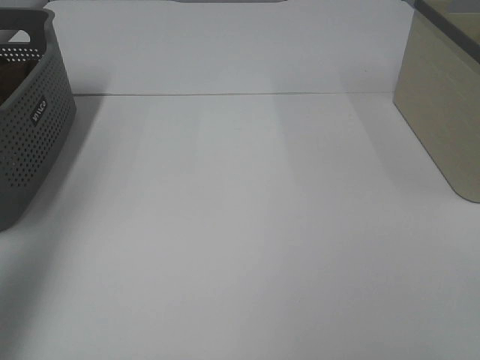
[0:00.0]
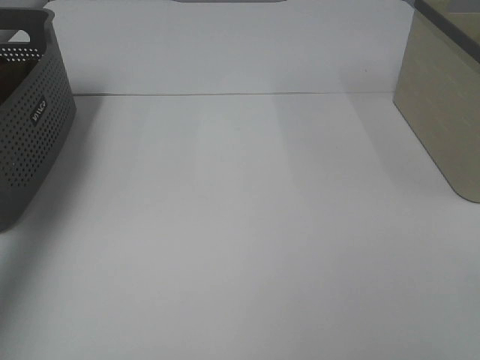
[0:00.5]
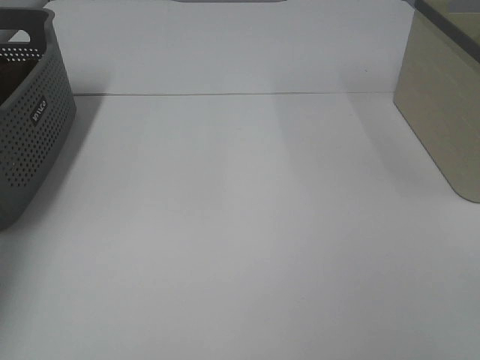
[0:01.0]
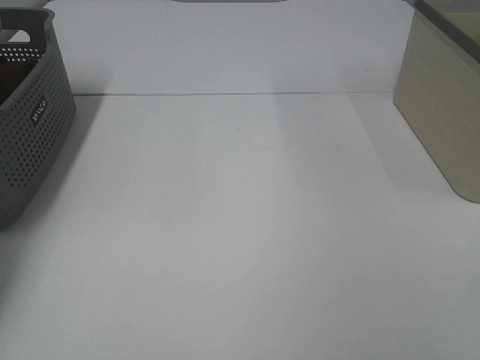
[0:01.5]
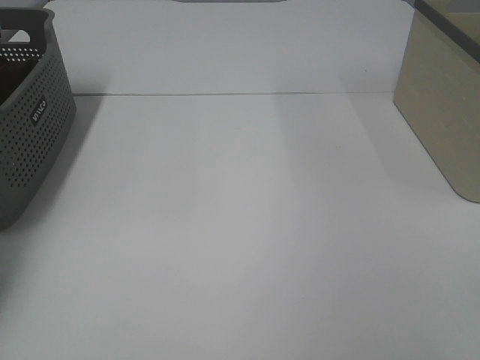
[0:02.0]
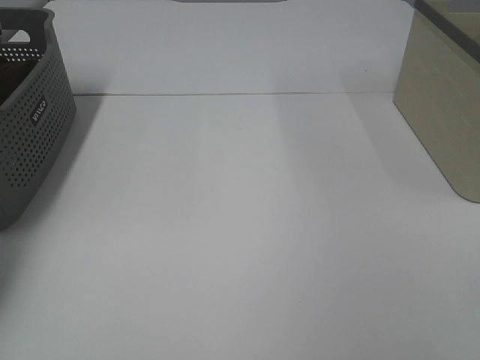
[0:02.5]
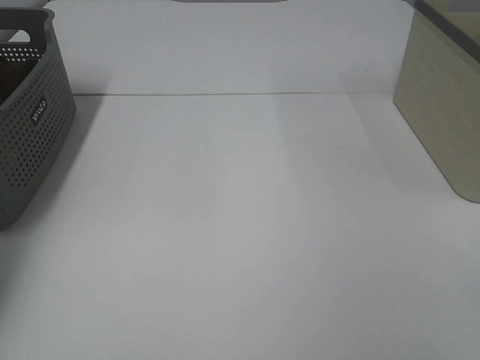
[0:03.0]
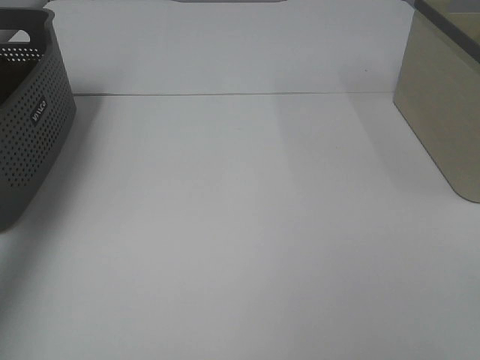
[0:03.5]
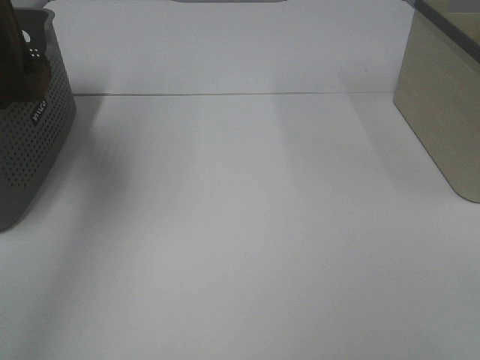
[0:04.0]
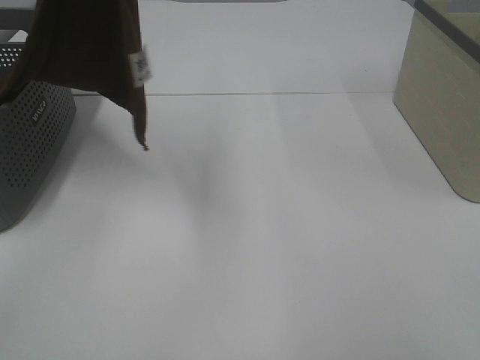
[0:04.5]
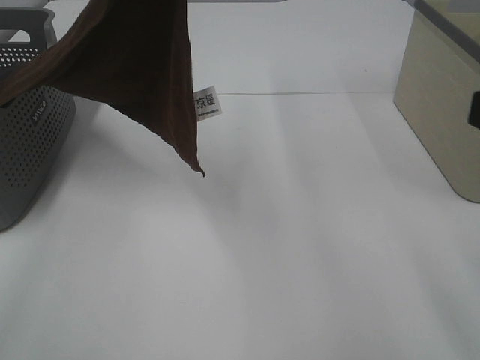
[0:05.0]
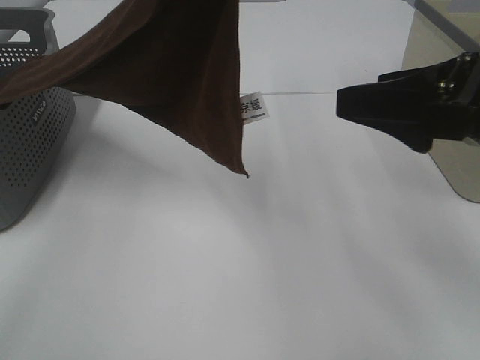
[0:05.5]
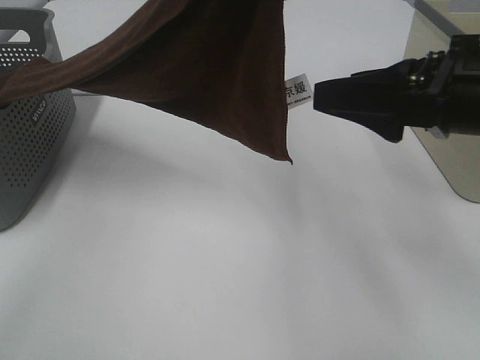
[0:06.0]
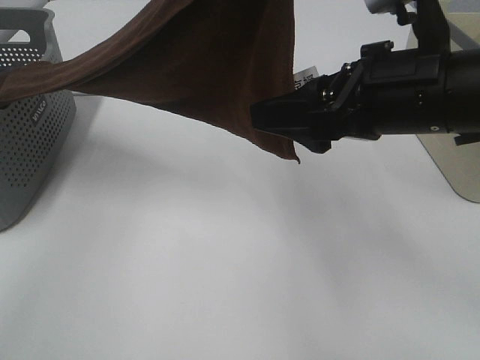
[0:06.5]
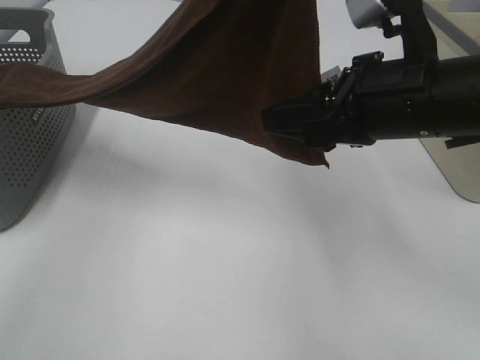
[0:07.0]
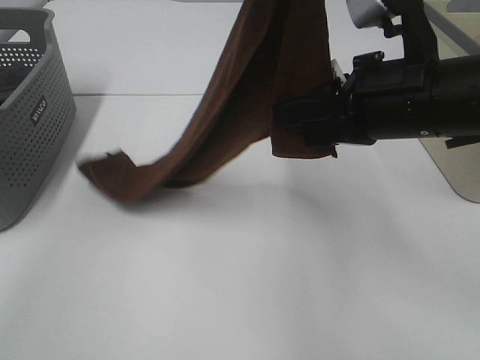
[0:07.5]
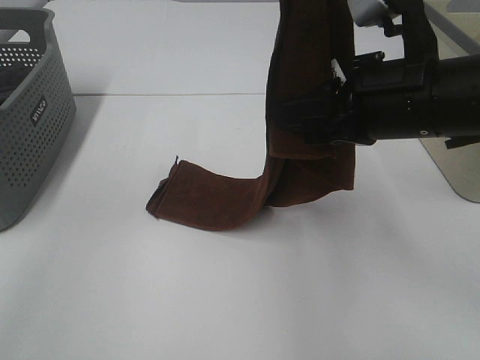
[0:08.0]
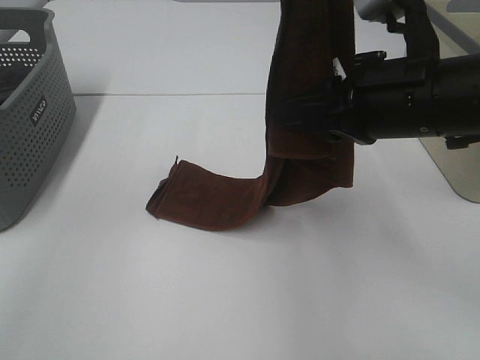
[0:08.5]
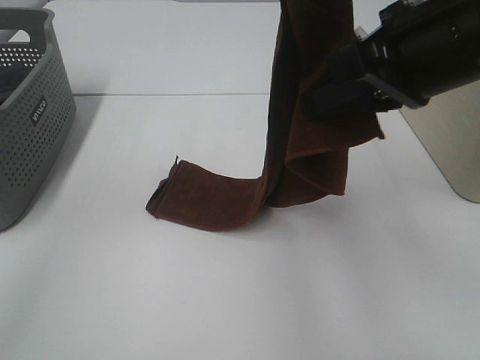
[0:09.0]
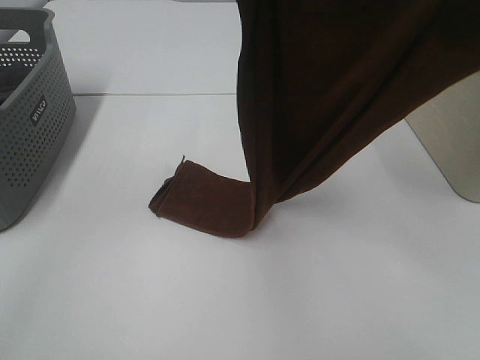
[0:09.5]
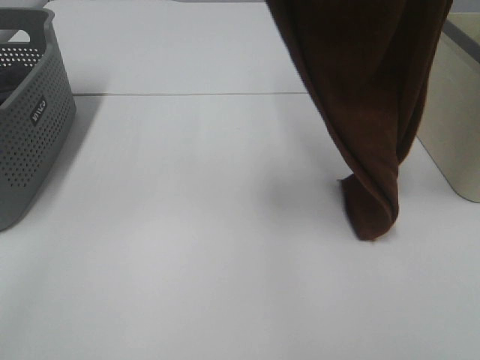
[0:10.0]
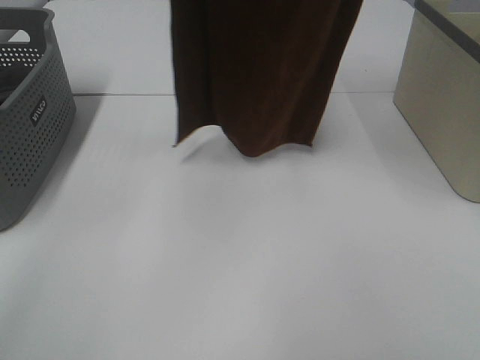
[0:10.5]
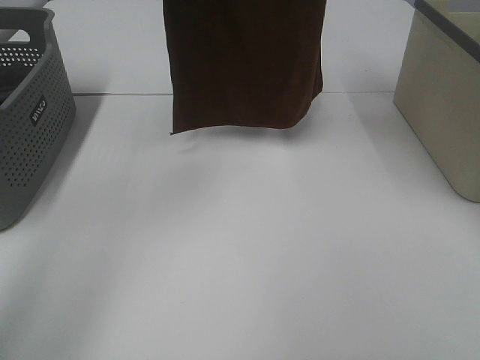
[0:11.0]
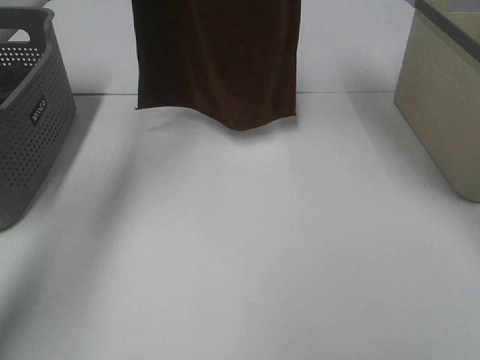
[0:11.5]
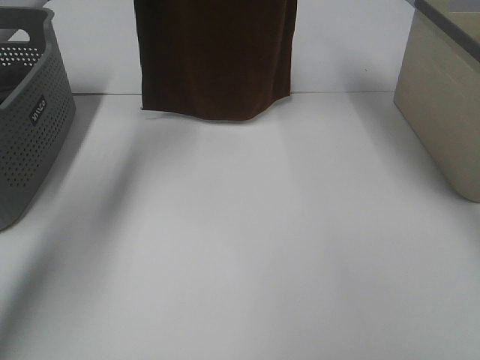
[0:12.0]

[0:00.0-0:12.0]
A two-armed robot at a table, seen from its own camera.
Task of the whole recording: Remove the towel and place it.
Step, 4.0 to 8.0 s: Right hand: grab a corner of the brown towel and straighten it.
0.0 to 2.0 s: The left gripper moves forward and downward, roughly 35 cm.
2.0 to 4.0 s: The left gripper goes roughly 40 cm upward, backward and to the right, and closes.
4.0 to 6.0 s: The right gripper travels forward by some 20 cm, while the left gripper moves to the right, about 20 cm.
6.0 to 8.0 s: The right gripper moves approximately 5 cm, and closes.
8.0 to 10.0 s: The right gripper is displaced upward by roughly 30 cm.
10.0 to 12.0 s: The right gripper goes about 20 cm forward. The left gripper goes about 25 cm forward and to the left.

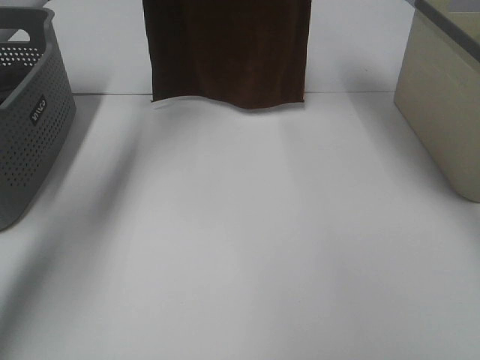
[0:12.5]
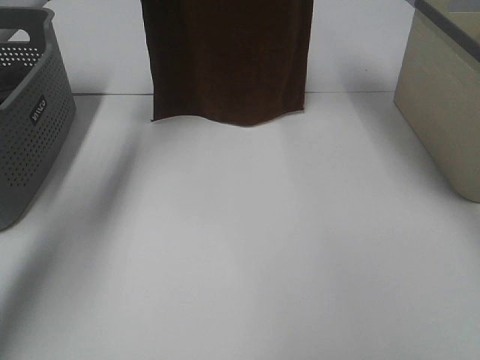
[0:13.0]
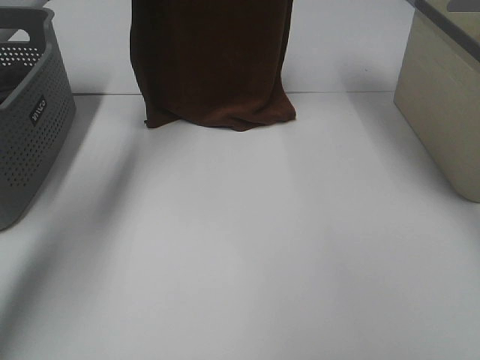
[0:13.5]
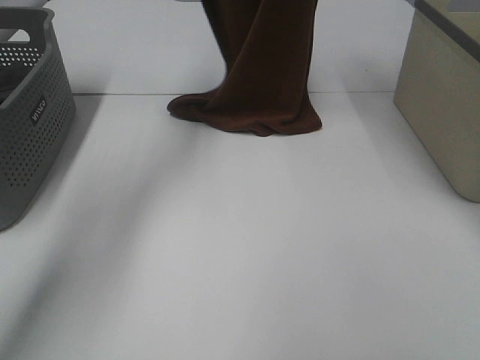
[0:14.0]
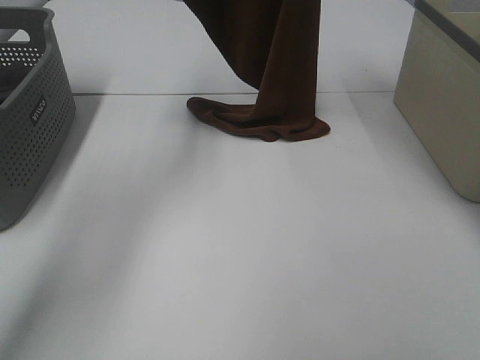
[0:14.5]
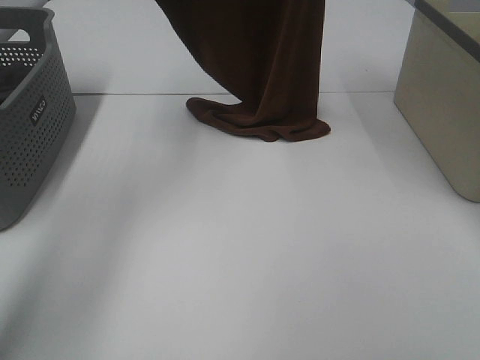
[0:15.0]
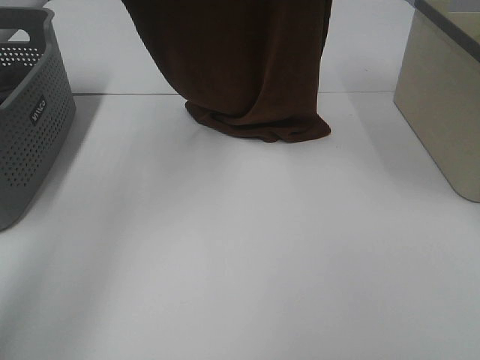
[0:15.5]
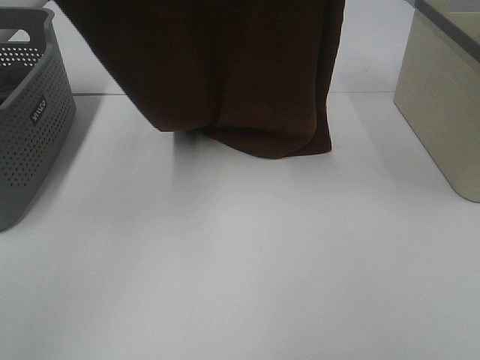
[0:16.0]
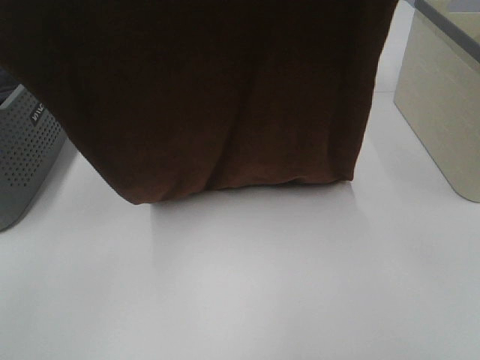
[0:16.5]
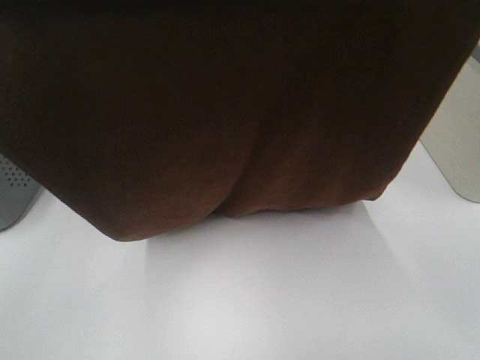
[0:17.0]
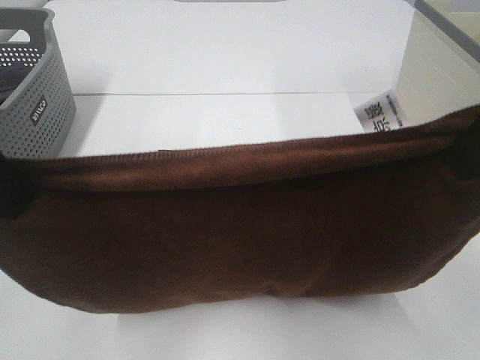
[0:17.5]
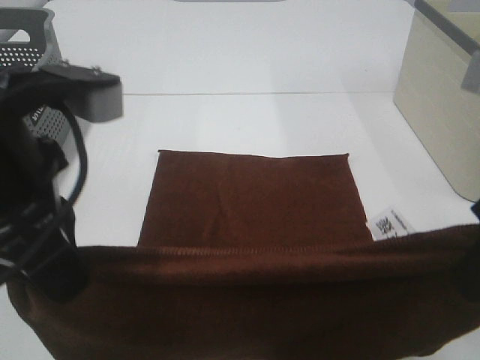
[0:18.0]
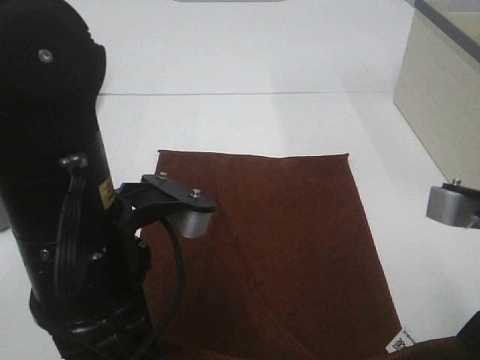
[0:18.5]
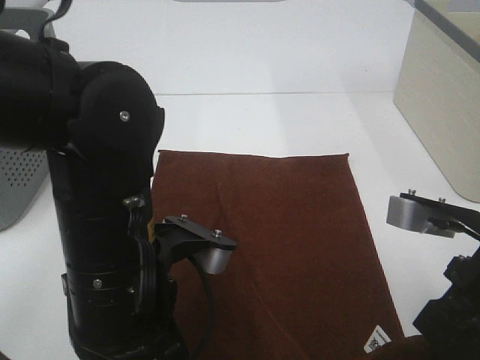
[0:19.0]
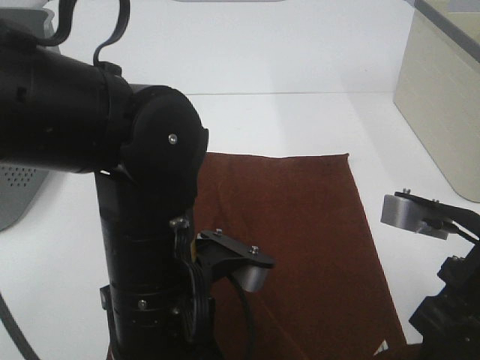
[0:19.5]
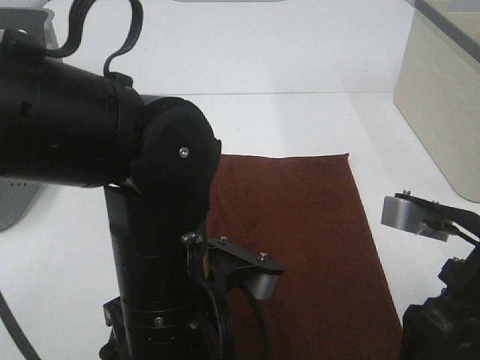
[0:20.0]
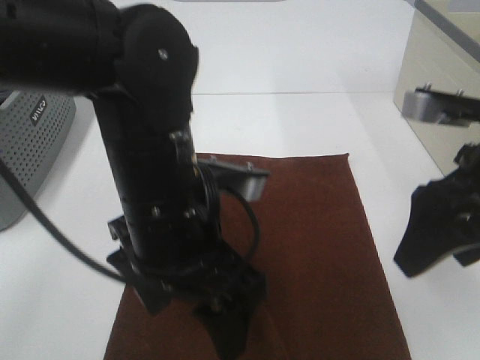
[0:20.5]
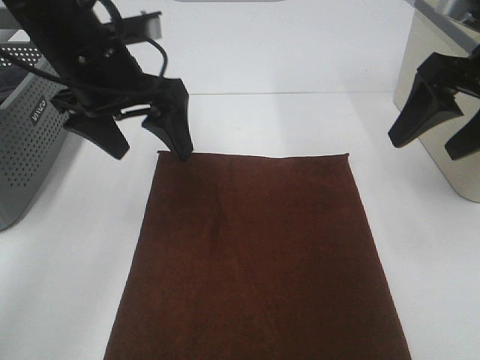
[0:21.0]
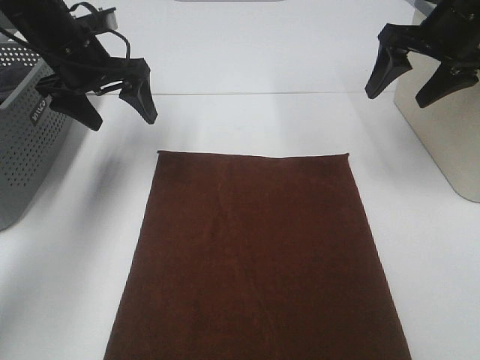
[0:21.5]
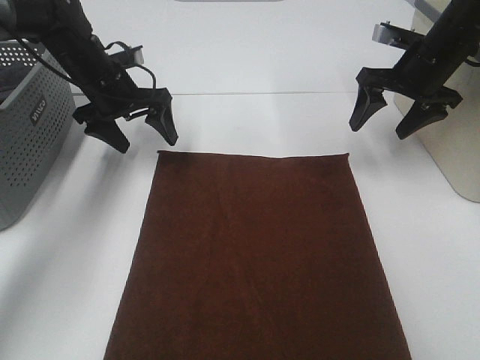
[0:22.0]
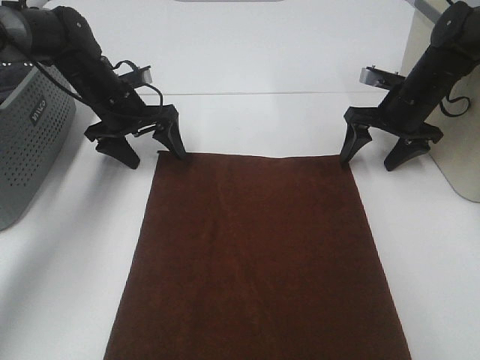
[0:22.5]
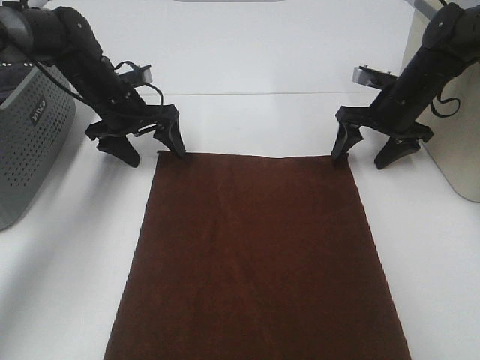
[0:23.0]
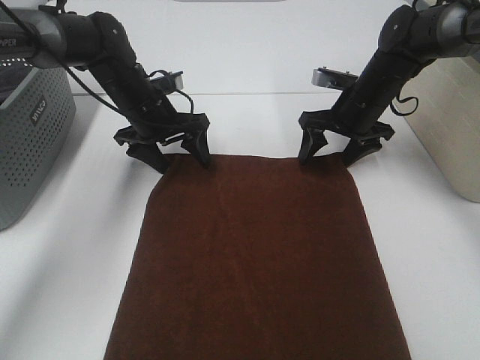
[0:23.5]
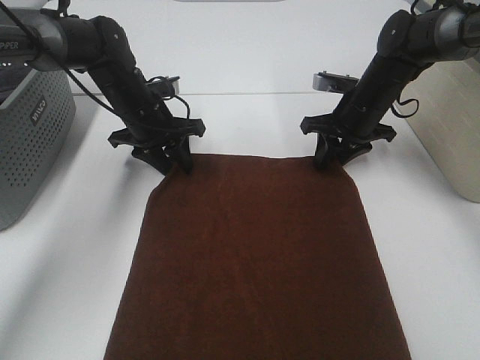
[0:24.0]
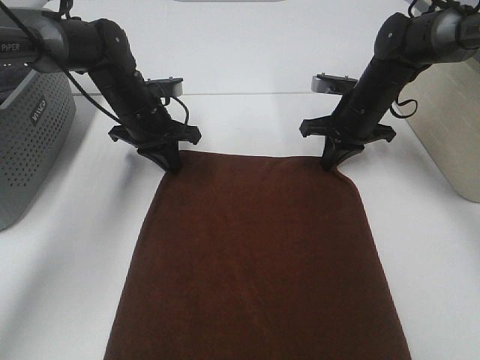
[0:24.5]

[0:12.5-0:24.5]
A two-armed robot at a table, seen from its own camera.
Task of the whole recording: Remove the towel and place it.
Step, 12.5 to 15.0 s: Left hand: spread the brown towel flat on the table.
Step, 12.5 to 15.0 s: Right hand: spread the brown towel flat on the table.
12.5 to 14.5 s: The left gripper travels downward and to the right by about 10 cm.
14.5 to 16.5 s: Both grippers move backward, about 25 cm.
16.5 to 18.5 s: The left gripper moves downward and to the right, approximately 25 cm. The right gripper shifts roughly 25 cm downward.
18.5 to 20.5 s: The right gripper goes approximately 10 cm forward, and opens. Meanwhile the left gripper moves about 5 cm, and opens its fingers.
20.5 to 22.5 s: The left gripper moves forward and to the left, roughly 30 cm, while the right gripper heads forward and downward, covering about 30 cm.
22.5 to 24.5 s: The right gripper moves to the left, roughly 5 cm, and closes its fingers, while the left gripper closes its fingers.

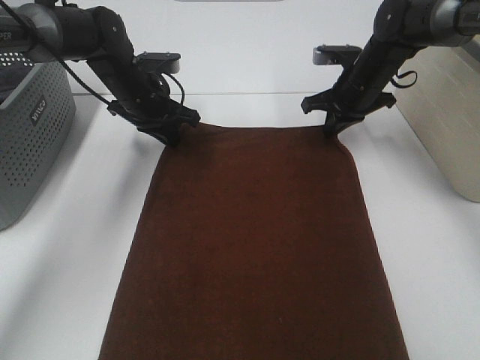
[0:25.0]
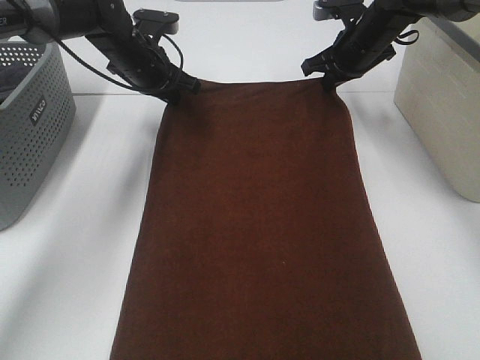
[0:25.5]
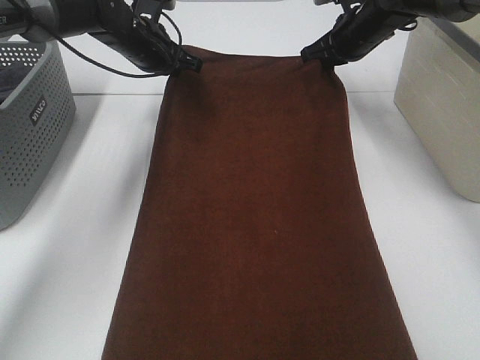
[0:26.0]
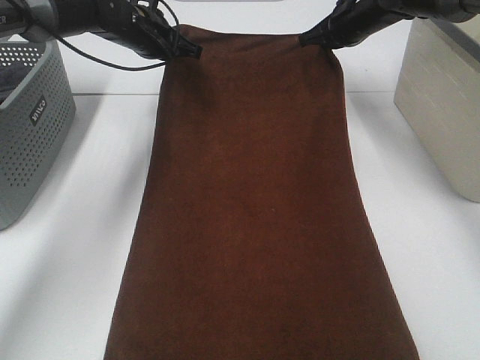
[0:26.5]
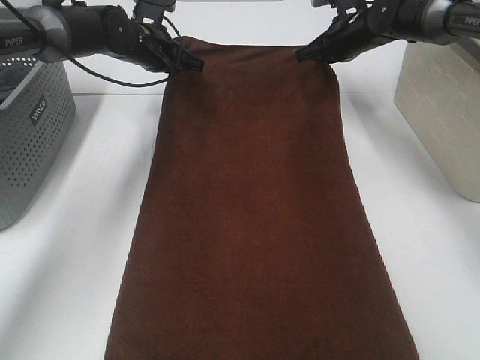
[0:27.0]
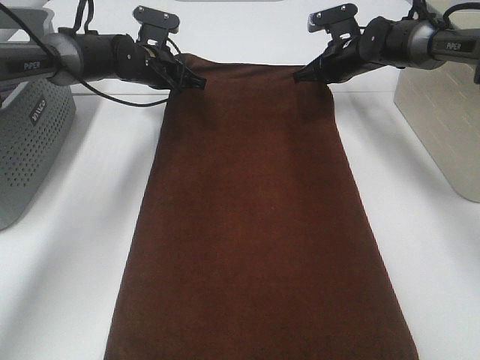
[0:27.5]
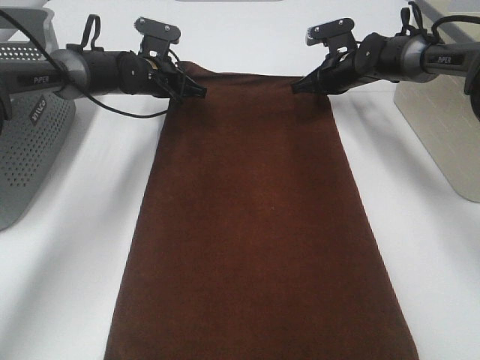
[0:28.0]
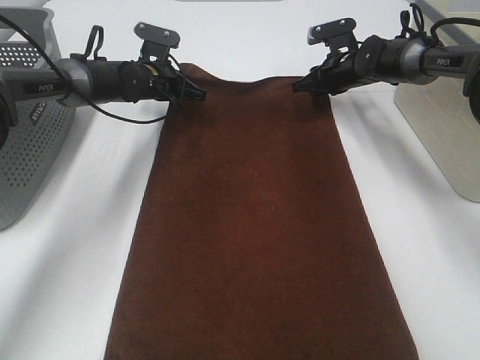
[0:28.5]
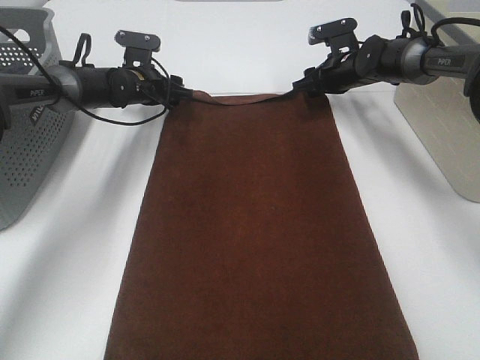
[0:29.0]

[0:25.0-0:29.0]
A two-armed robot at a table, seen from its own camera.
Task of the whole recording: Remove the towel and place it.
25.0 to 27.0 s: Both grippers travel together forward, some 5 cm.
27.0 to 29.0 s: The two grippers go some 5 cm downward. The right gripper opens up, while the left gripper opens its fingers.
